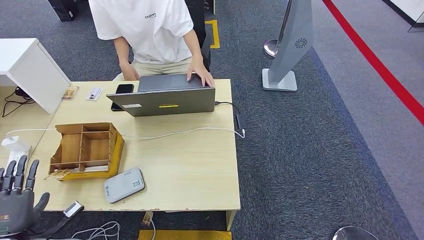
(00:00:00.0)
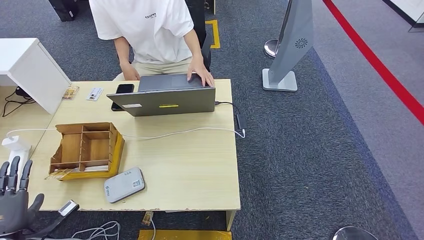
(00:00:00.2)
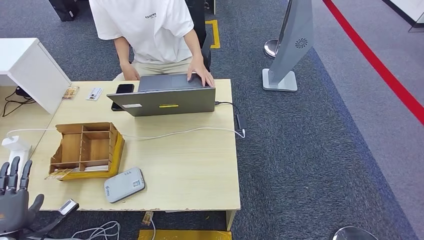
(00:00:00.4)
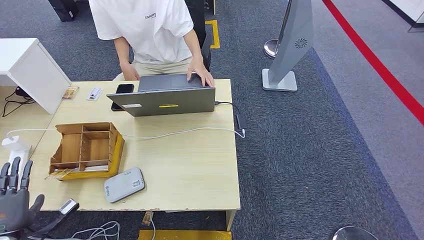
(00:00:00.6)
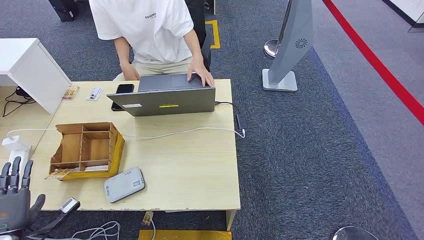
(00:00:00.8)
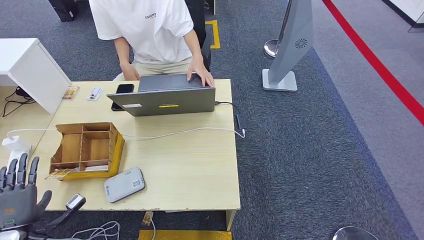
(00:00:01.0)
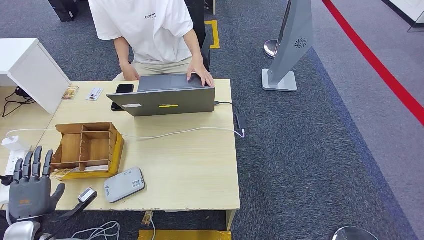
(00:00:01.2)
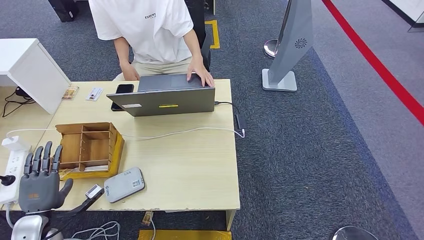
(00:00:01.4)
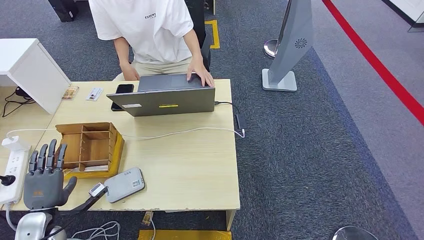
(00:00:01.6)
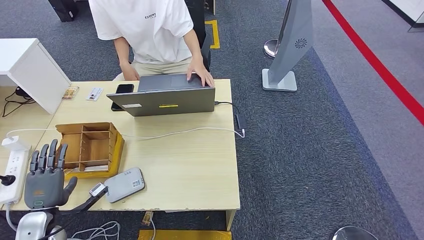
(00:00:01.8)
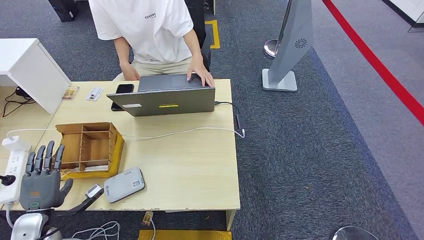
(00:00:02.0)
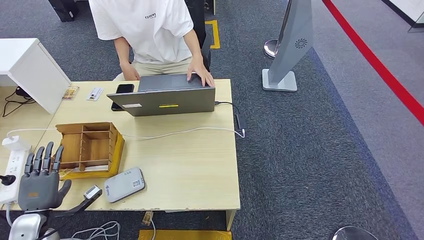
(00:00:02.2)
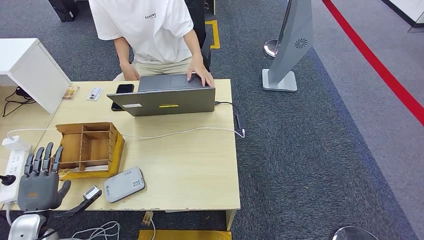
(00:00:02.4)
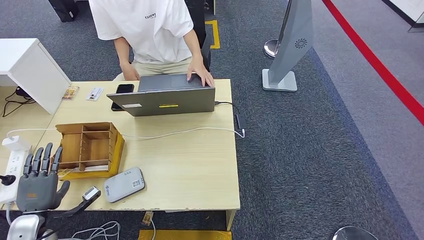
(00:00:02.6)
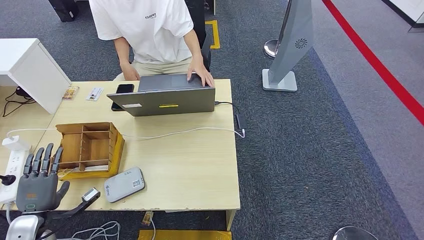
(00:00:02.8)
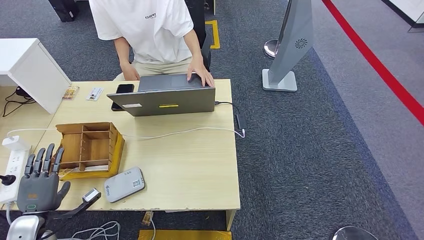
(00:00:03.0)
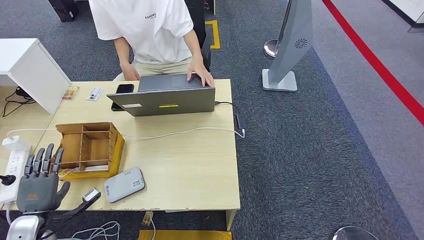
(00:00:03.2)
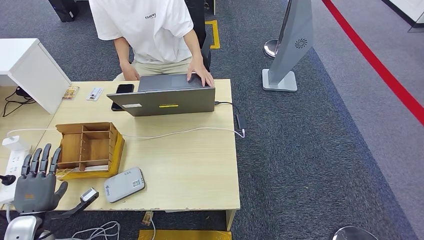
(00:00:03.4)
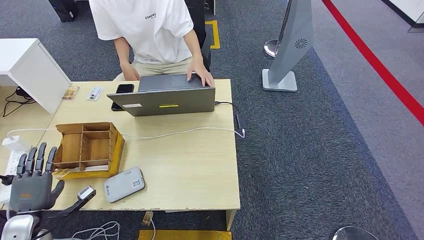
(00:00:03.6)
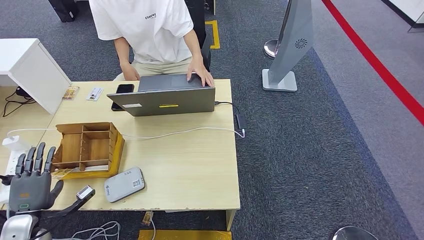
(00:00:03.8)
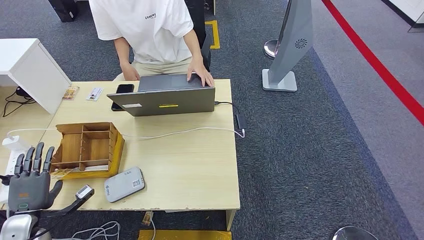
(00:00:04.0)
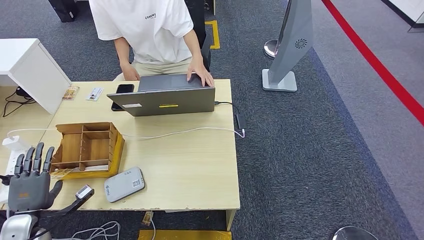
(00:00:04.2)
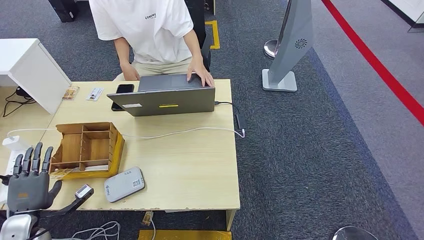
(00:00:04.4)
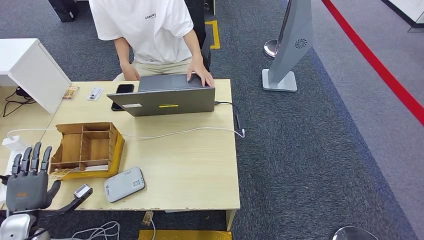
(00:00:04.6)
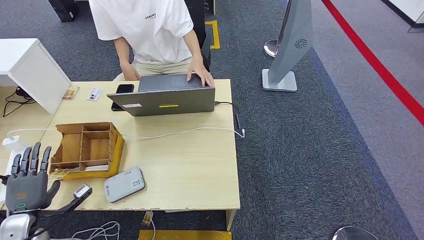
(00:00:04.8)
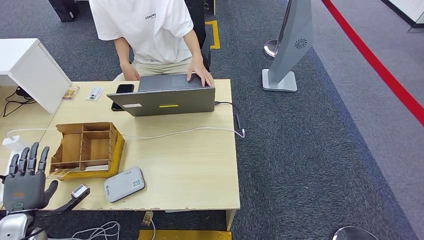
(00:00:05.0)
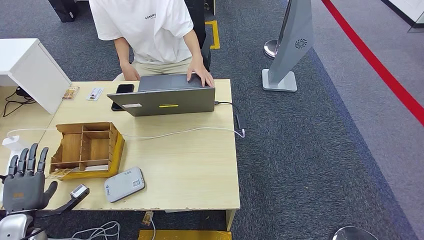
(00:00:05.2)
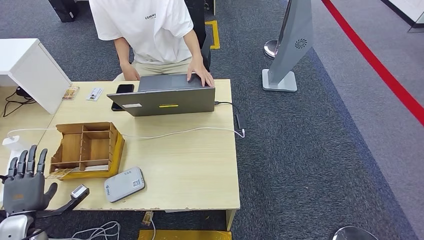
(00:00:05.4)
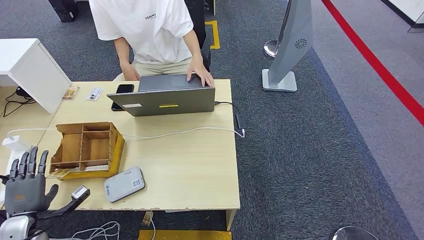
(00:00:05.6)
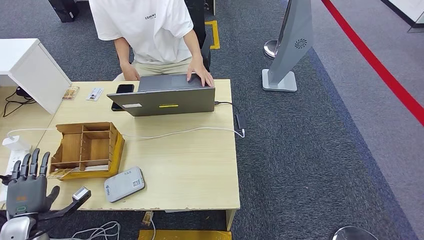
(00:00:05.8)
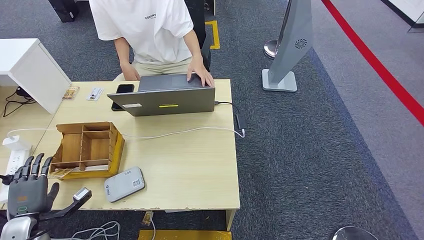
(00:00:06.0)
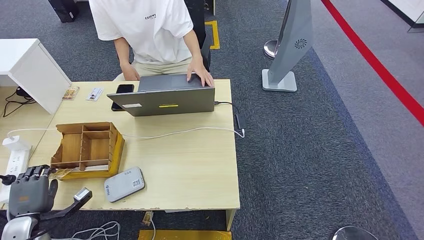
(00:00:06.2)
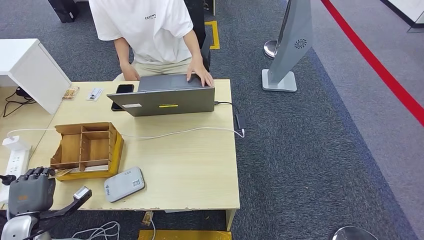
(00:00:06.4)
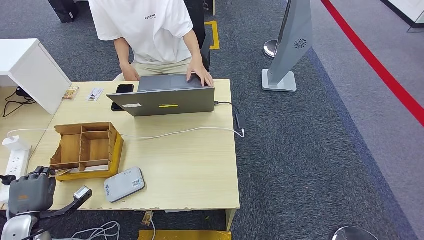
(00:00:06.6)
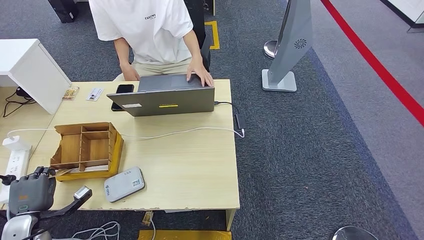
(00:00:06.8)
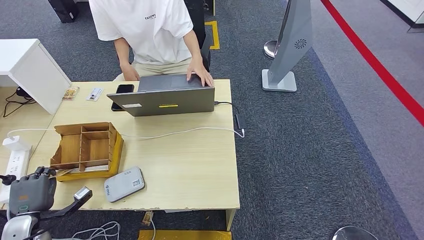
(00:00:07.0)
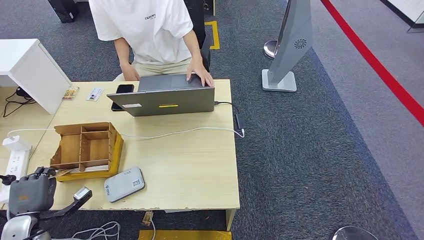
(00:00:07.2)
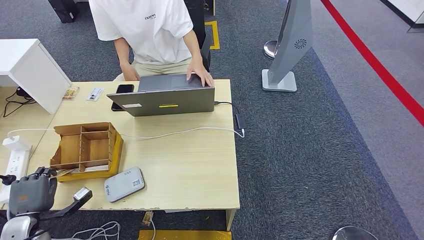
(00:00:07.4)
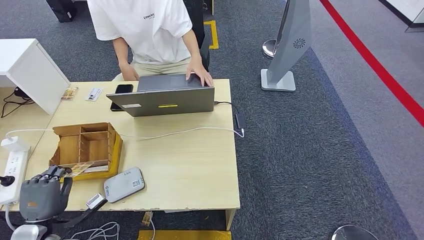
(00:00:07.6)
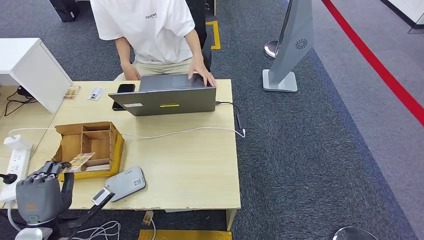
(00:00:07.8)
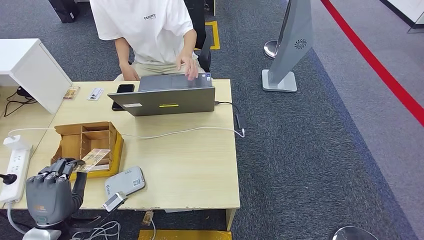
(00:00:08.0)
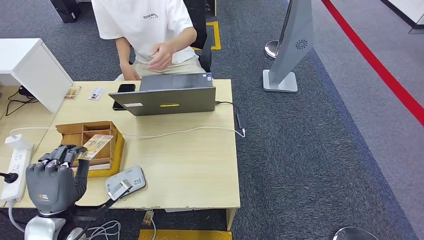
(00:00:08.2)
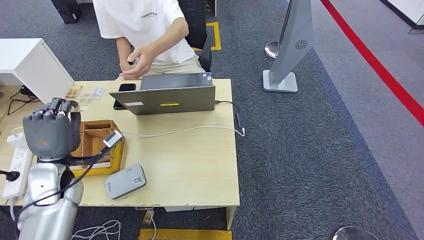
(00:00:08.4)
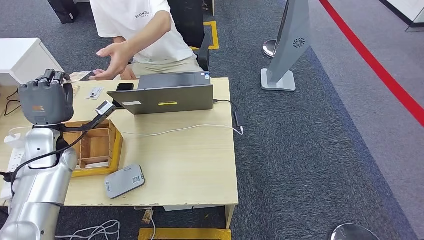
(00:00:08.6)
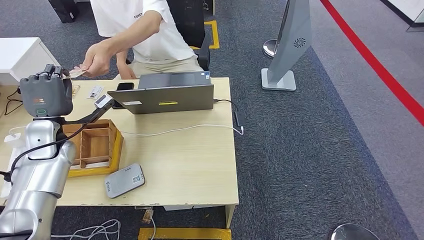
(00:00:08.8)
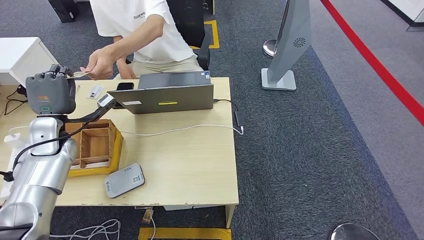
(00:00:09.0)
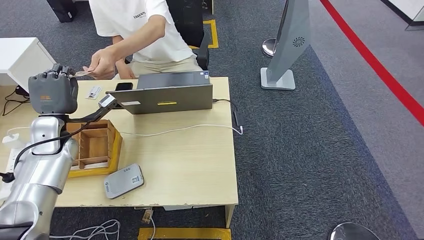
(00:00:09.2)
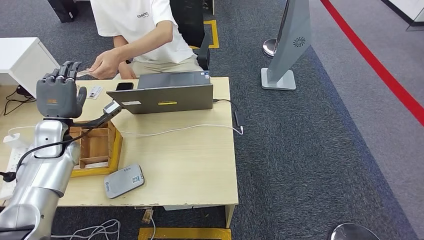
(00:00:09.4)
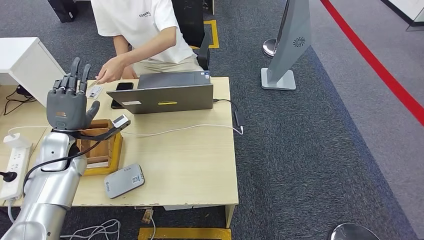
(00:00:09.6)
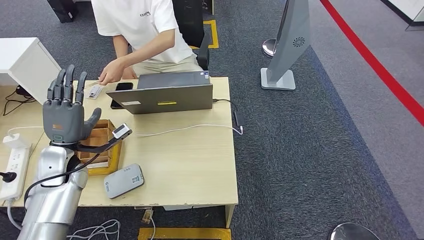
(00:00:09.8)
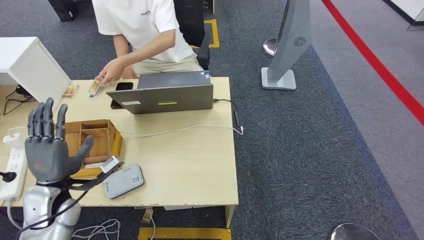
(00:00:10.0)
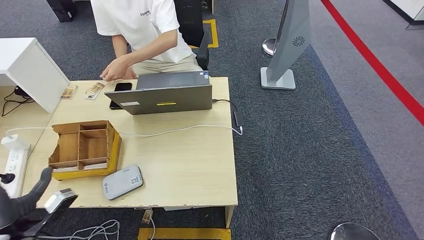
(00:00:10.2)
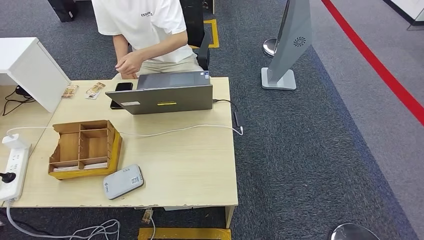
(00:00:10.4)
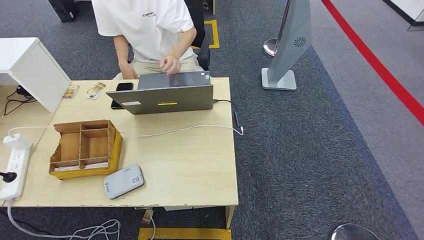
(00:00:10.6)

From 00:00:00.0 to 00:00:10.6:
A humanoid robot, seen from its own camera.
Step, from 00:00:04.8 to 00:00:08.0: Pick up the room key from the key card box.
Step, from 00:00:08.2 to 00:00:10.6: Hand the room key to the person.
From 00:00:00.0 to 00:00:01.6: The left hand shifts approximately 5 cm forward.
From 00:00:01.6 to 00:00:06.0: The hands make only small movements.
From 00:00:06.0 to 00:00:07.6: The left hand ends up some 5 cm from where it was.
From 00:00:09.0 to 00:00:10.6: The left hand is displaced backward, to the left and downward by approximately 40 cm.
